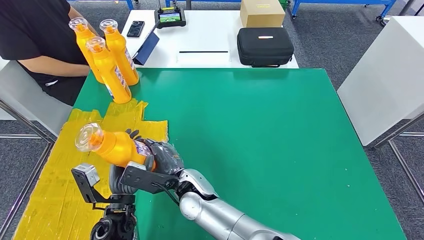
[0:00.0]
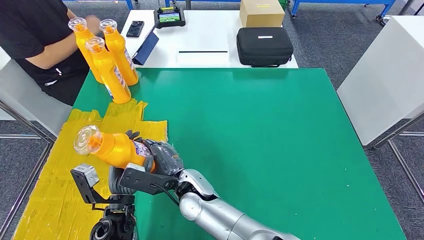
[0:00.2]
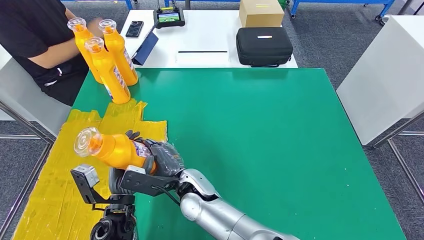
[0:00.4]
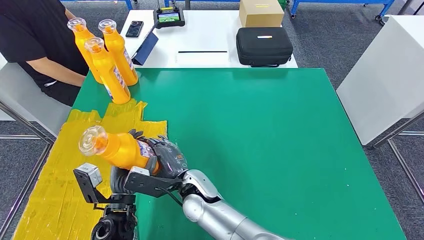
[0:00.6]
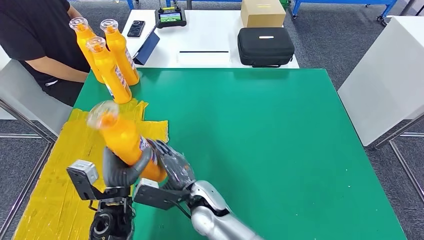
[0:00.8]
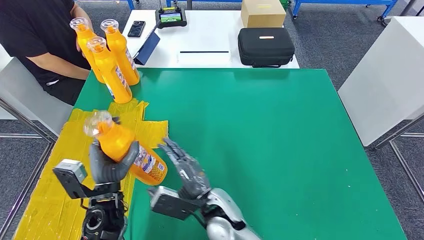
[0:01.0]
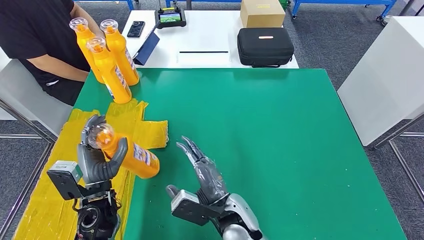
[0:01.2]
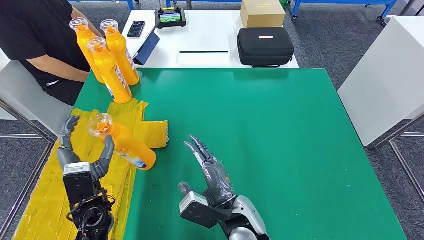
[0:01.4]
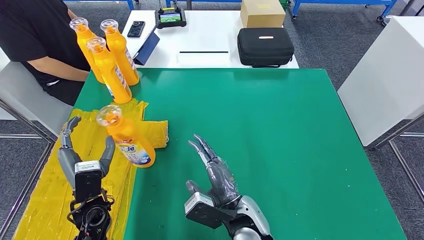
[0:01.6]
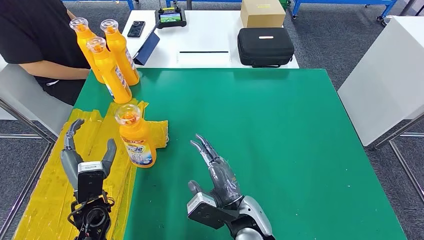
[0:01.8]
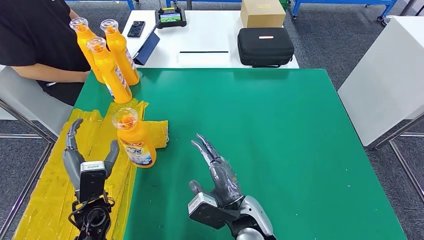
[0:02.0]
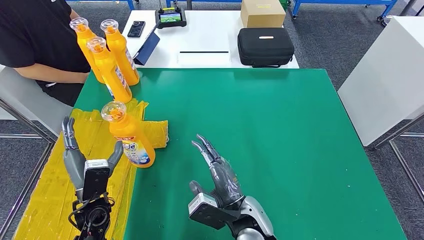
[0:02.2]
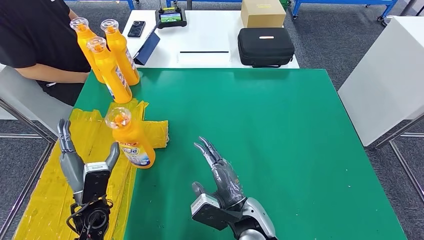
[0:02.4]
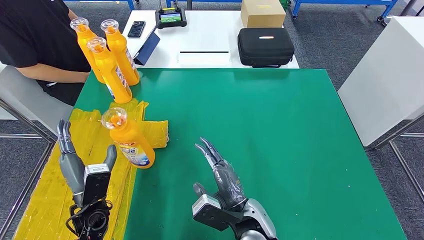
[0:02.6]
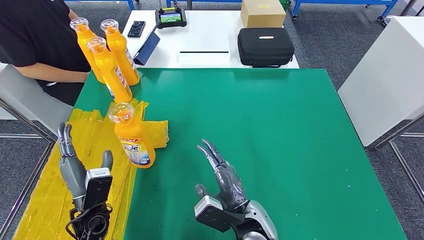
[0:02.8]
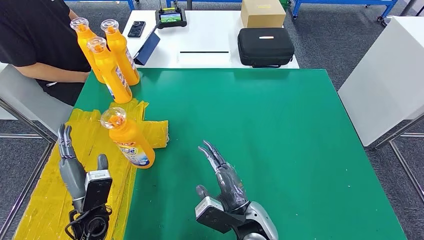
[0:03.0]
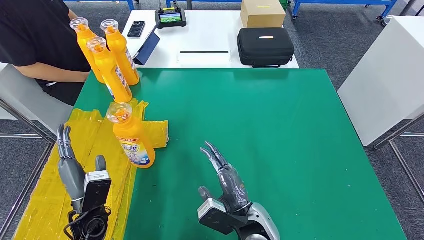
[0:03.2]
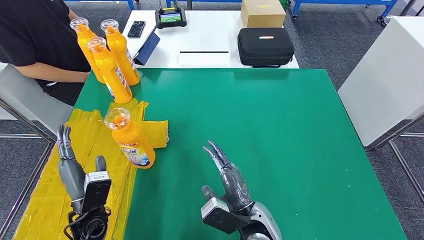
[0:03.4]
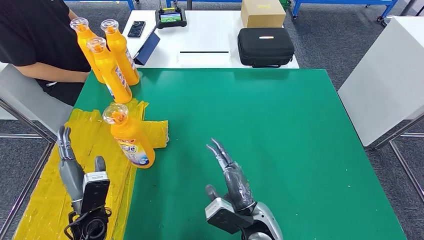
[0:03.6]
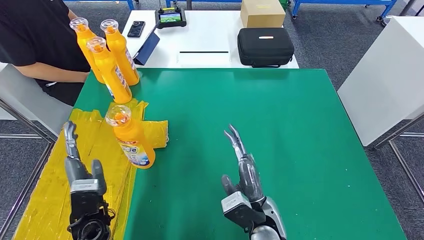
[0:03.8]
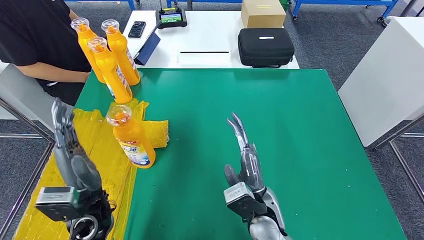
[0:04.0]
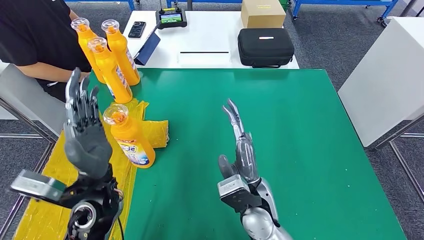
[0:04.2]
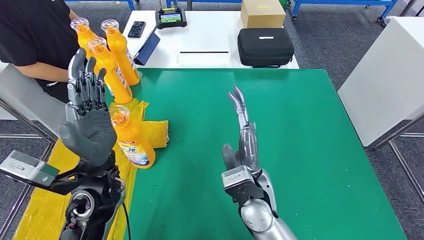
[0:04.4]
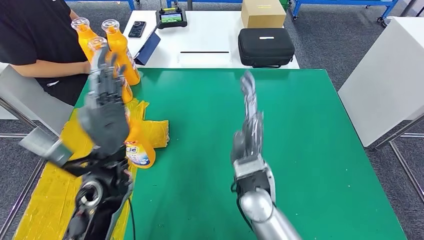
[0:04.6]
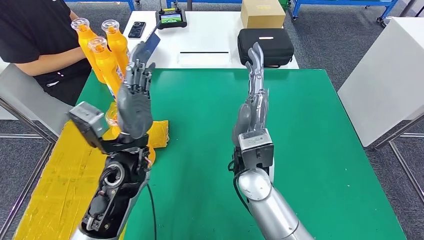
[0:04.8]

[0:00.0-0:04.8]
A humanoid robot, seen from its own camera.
Step, 0:00.0 to 0:04.8: Flip the bottle to face forward.
0:00.0 to 0:01.6: The left hand travels to the left by approximately 5 cm; the right hand shifts some 15 cm to the right and backward.
0:01.6 to 0:03.2: There are only small adjustments of the hands.
